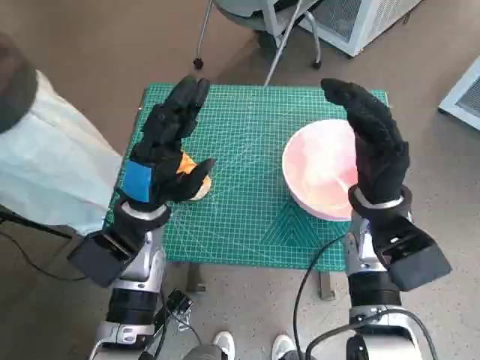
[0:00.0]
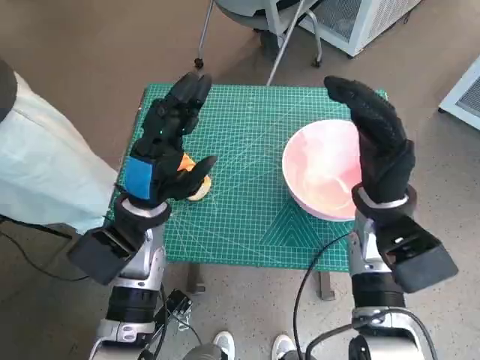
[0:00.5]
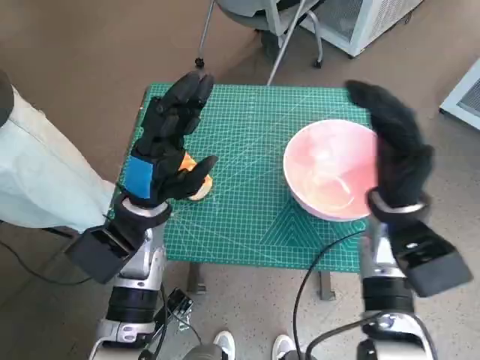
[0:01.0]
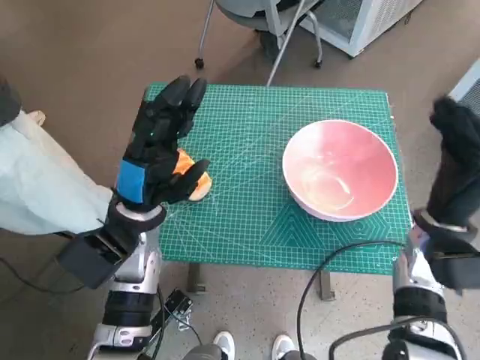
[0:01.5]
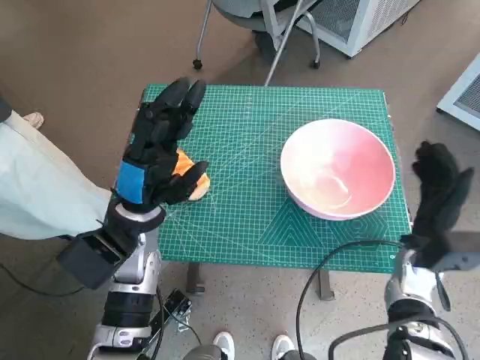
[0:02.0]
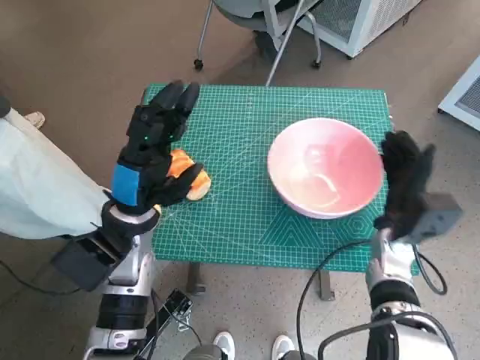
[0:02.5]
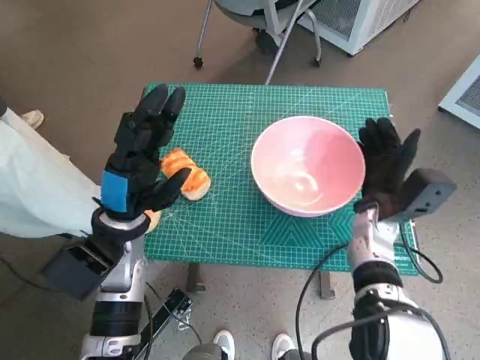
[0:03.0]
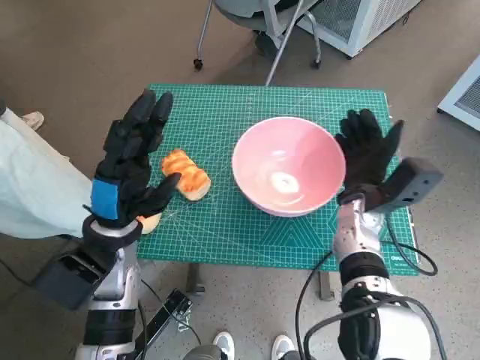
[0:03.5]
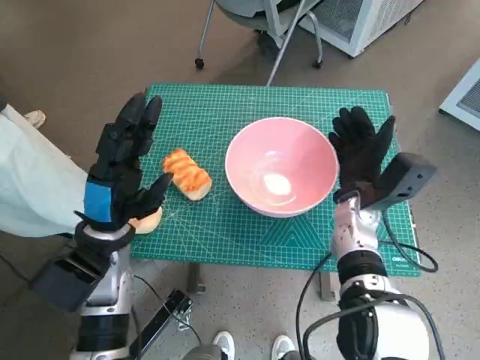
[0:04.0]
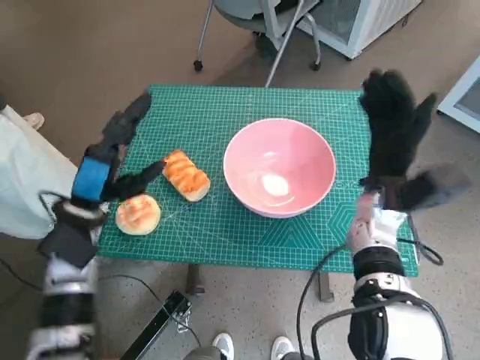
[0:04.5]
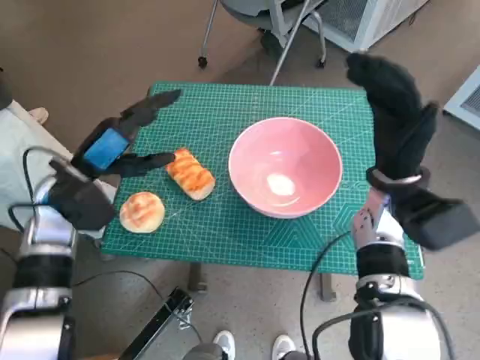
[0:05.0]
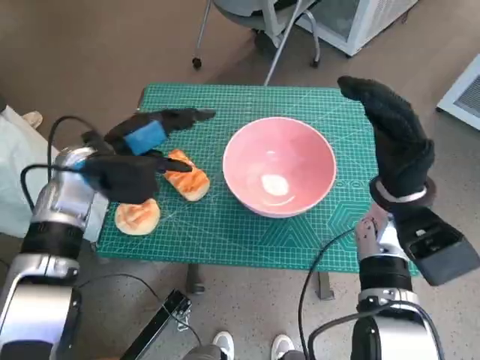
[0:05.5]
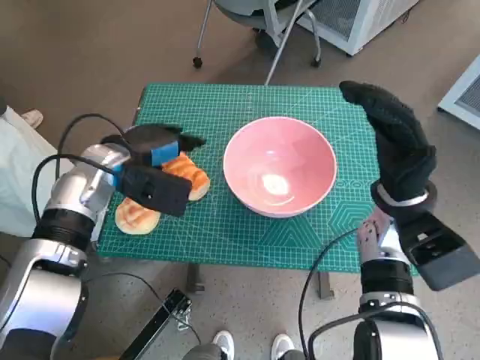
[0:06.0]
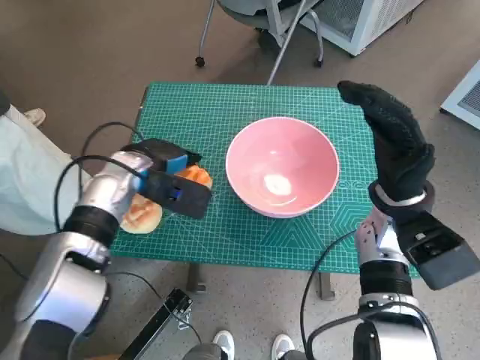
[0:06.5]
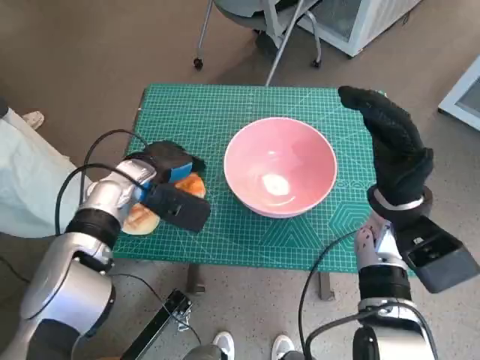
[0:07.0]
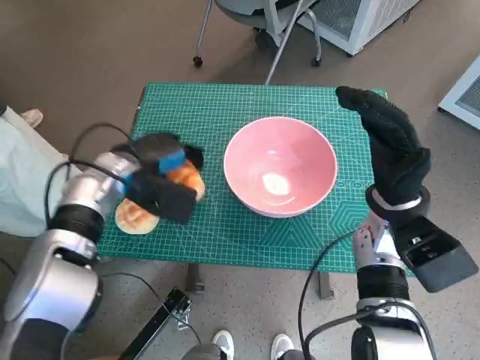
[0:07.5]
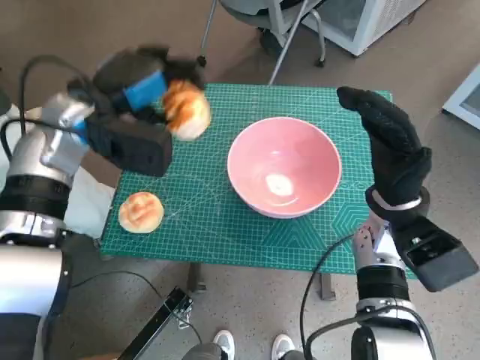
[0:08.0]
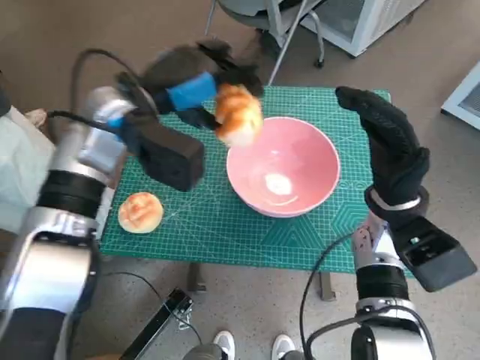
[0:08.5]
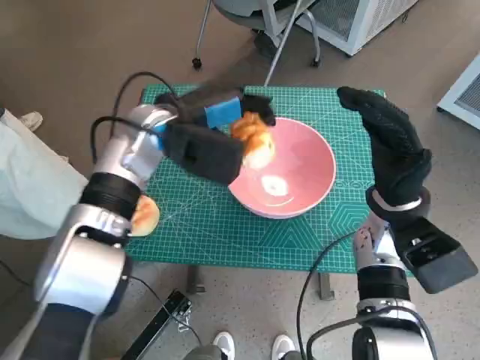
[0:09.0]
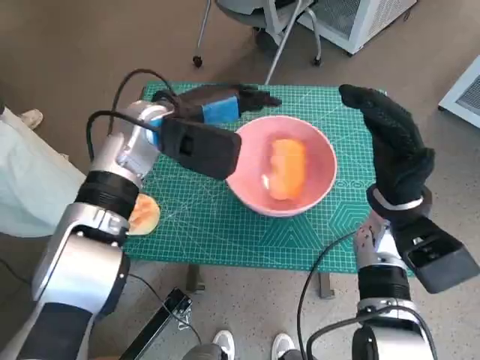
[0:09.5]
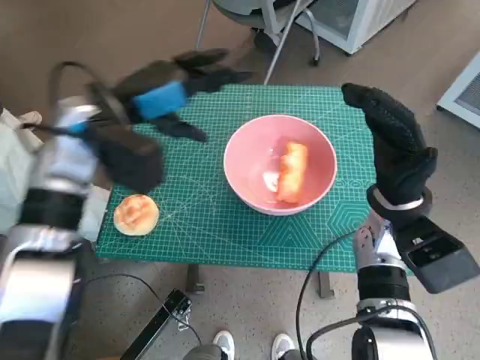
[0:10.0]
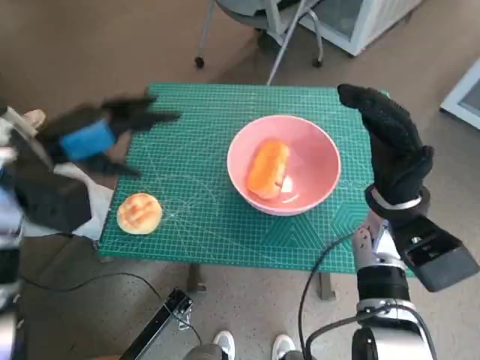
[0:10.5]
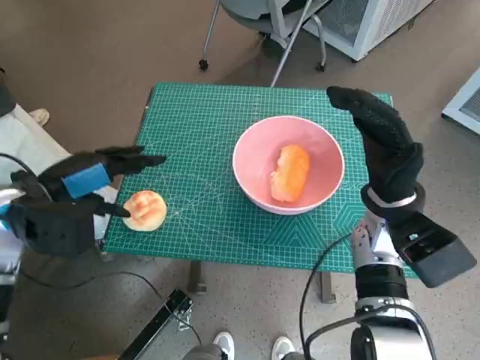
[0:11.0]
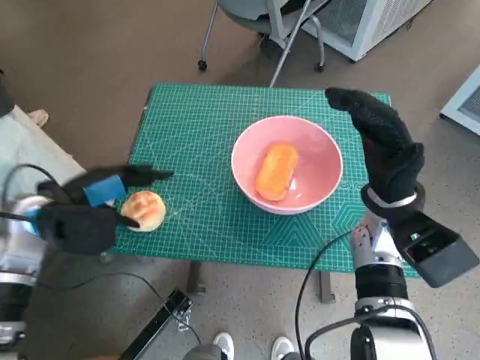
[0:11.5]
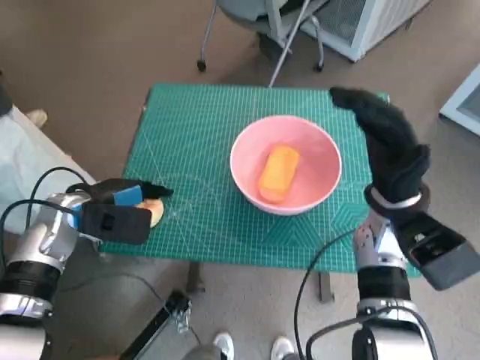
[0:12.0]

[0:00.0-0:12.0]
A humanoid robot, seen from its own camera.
Task of the whole recording: Push the bowl to the center of the table and put the bread into the bowl.
Step, 0:00.0 to 0:04.0: Move the pink bowl to the center of table with right hand.
Step, 0:04.5 to 0:06.5: Grasp the long bread with left hand.
Step, 0:07.0 to 0:09.0: Place the long bread in pink bowl with left hand.
Step, 0:09.5 to 0:11.5: Grasp the round bread with left hand.
0:02.0 to 0:04.0: The right hand travels to the left and forward by approximately 10 cm.
0:04.0 to 0:06.0: The right hand is displaced upward by some 5 cm, while the left hand travels forward by about 10 cm.
0:06.0 to 0:08.0: The left hand goes about 5 cm upward.
0:10.0 to 0:12.0: The left hand shifts roughly 15 cm downward, to the left and backward.

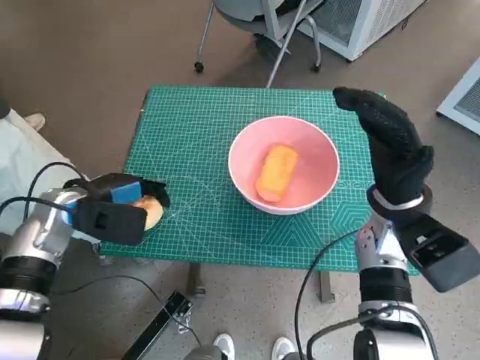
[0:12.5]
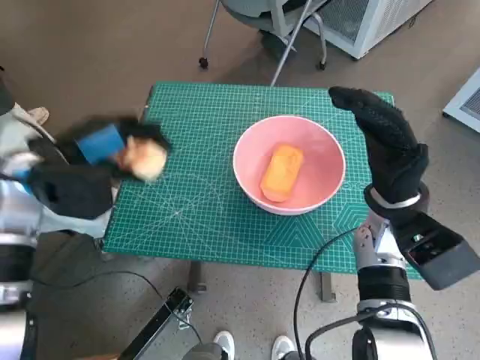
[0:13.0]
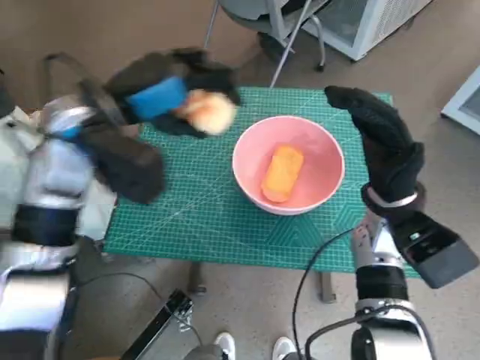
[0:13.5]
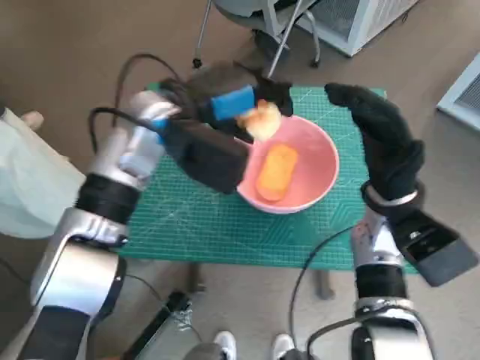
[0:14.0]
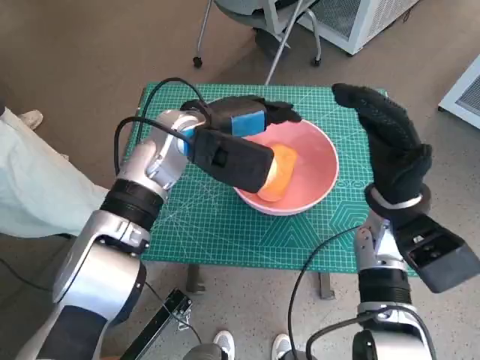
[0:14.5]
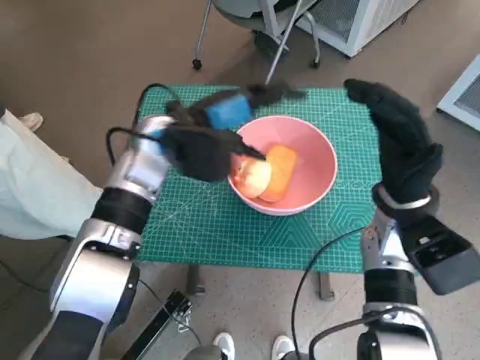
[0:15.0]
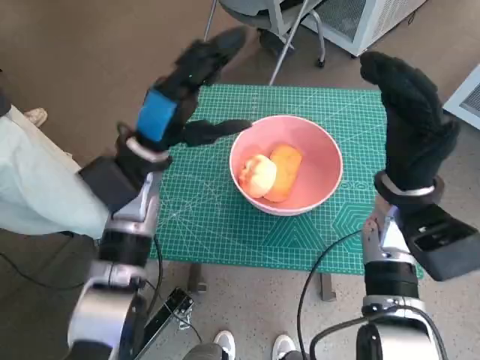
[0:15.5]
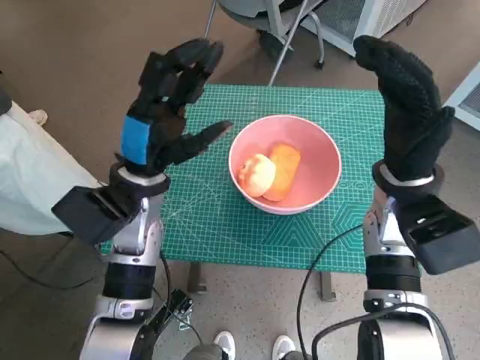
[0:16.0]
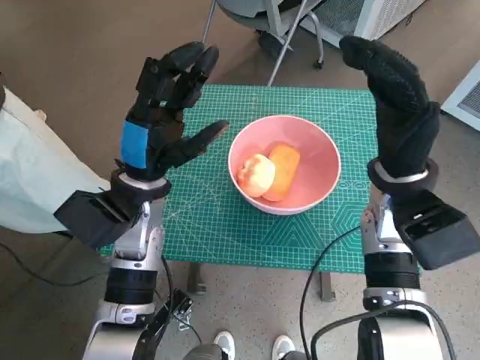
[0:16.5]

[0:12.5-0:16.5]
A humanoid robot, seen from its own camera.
Task of the whole recording: Push the bowl to the center of the table and put the bread into the bowl.
Step, 0:12.5 to 0:14.0: Place the round bread in pink bowl with left hand.
0:12.5 to 0:14.5: The left hand travels to the right and upward by some 20 cm.
0:14.5 to 0:16.5: The left hand goes some 10 cm backward, to the left and downward.
